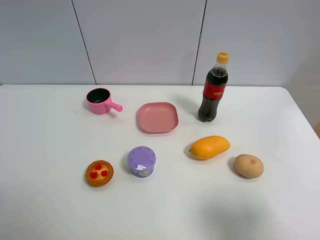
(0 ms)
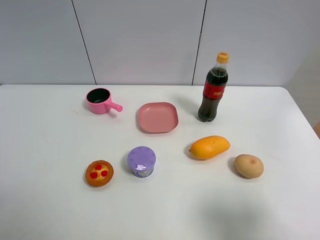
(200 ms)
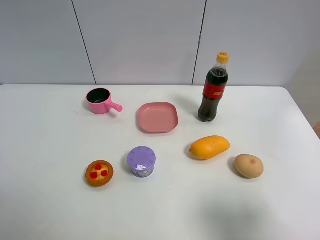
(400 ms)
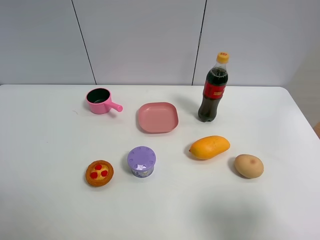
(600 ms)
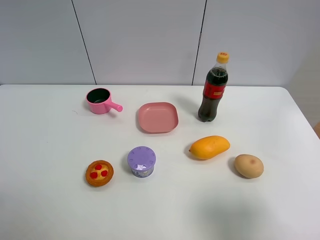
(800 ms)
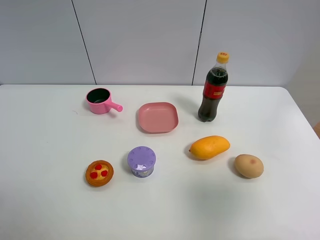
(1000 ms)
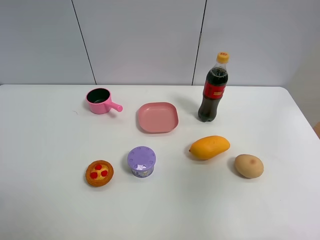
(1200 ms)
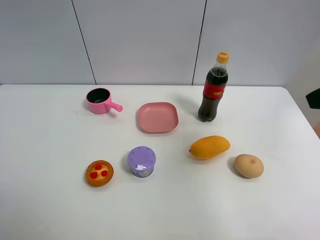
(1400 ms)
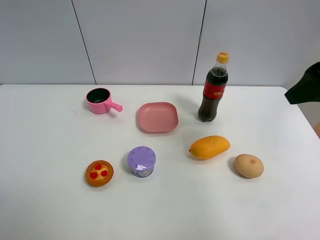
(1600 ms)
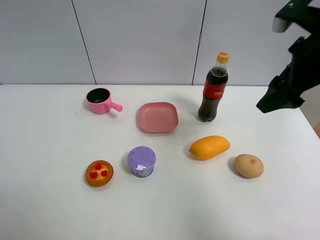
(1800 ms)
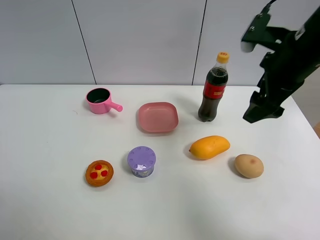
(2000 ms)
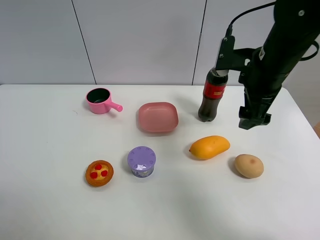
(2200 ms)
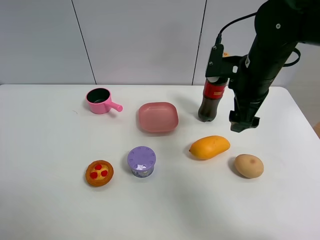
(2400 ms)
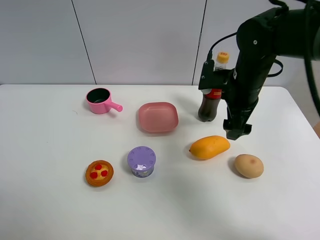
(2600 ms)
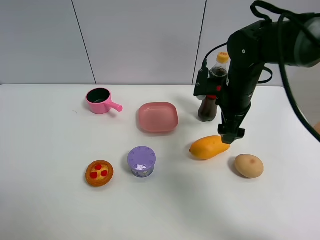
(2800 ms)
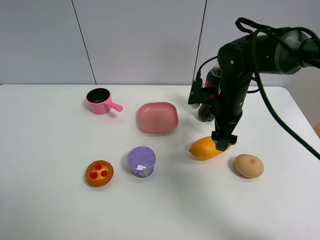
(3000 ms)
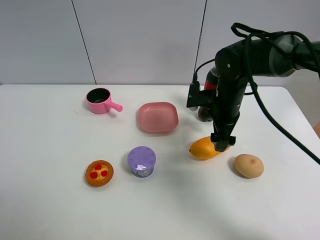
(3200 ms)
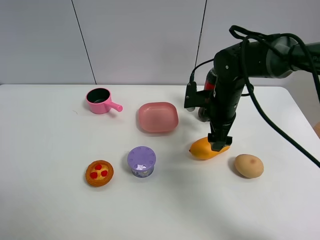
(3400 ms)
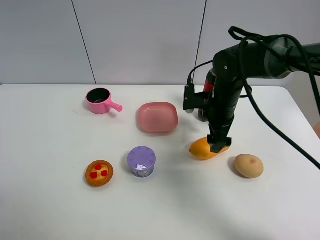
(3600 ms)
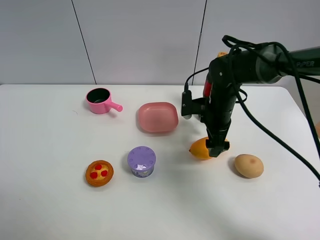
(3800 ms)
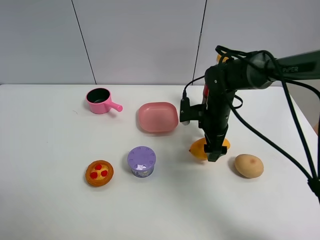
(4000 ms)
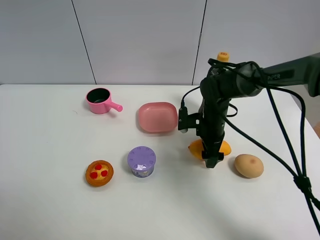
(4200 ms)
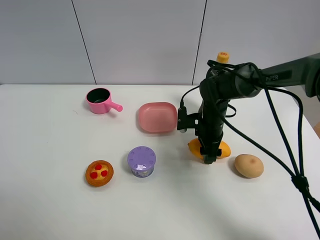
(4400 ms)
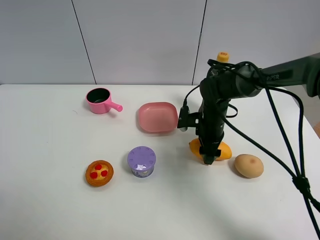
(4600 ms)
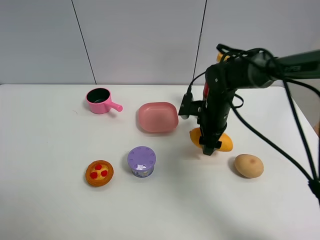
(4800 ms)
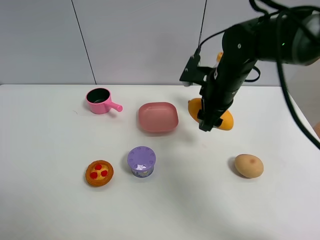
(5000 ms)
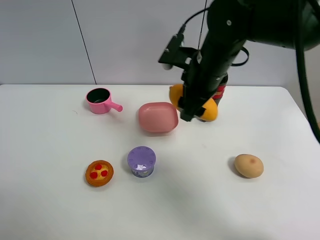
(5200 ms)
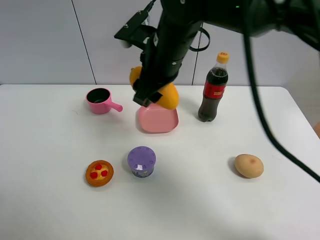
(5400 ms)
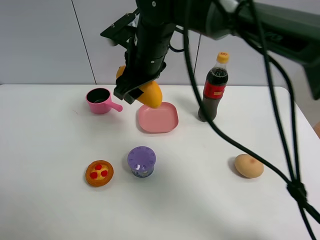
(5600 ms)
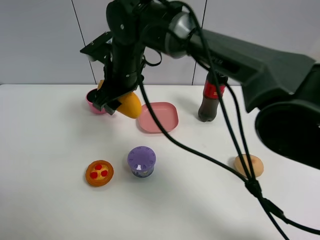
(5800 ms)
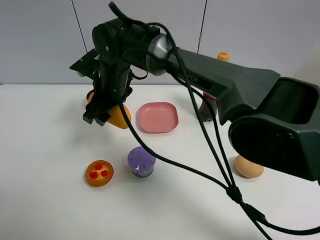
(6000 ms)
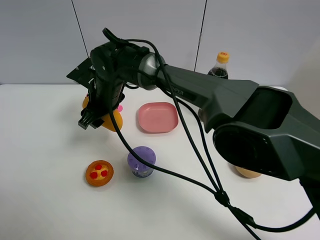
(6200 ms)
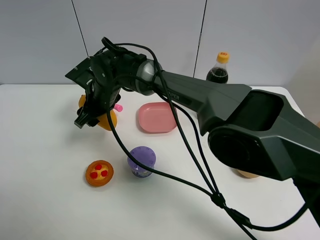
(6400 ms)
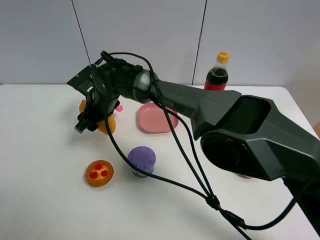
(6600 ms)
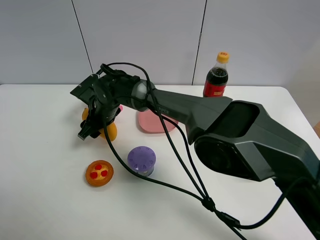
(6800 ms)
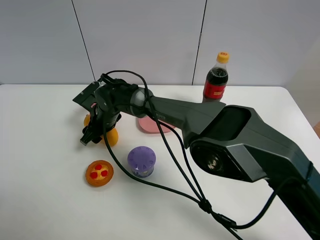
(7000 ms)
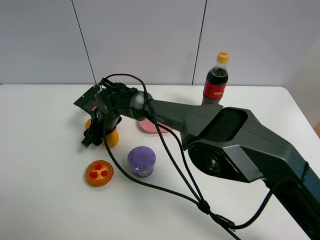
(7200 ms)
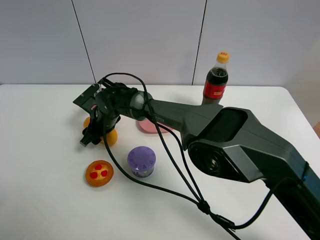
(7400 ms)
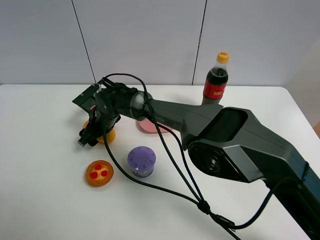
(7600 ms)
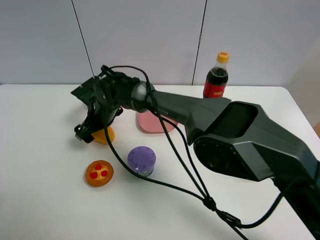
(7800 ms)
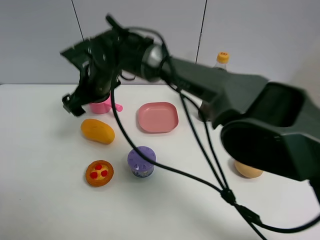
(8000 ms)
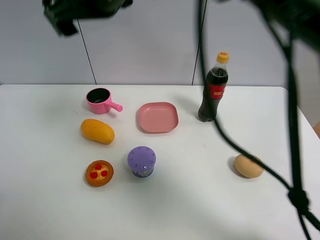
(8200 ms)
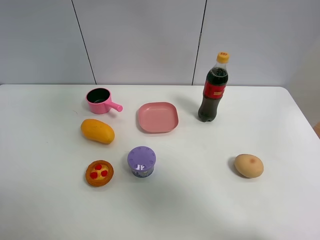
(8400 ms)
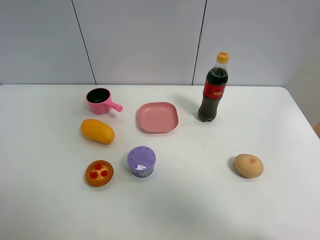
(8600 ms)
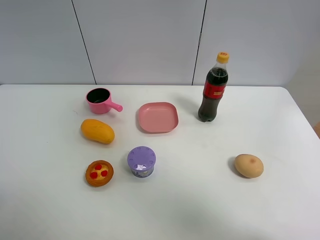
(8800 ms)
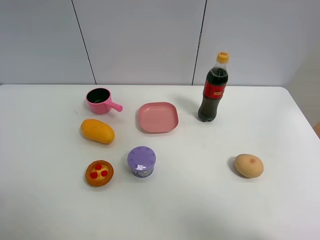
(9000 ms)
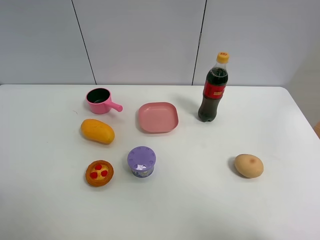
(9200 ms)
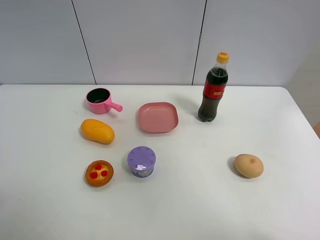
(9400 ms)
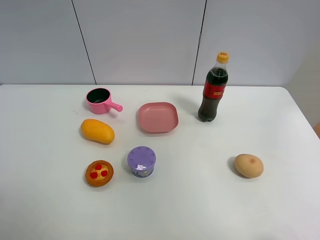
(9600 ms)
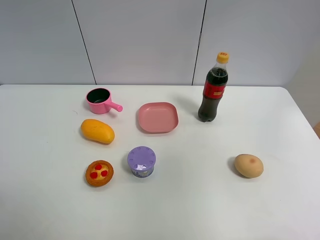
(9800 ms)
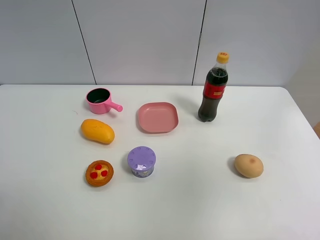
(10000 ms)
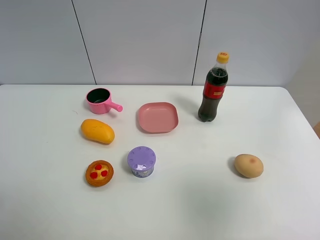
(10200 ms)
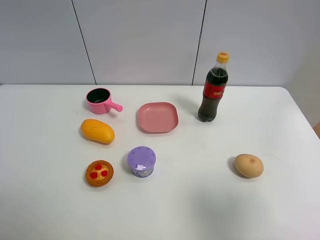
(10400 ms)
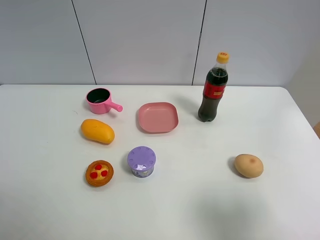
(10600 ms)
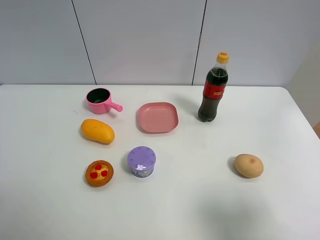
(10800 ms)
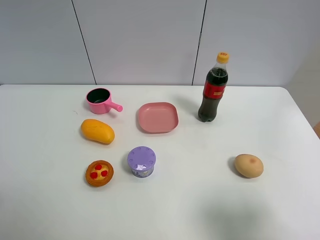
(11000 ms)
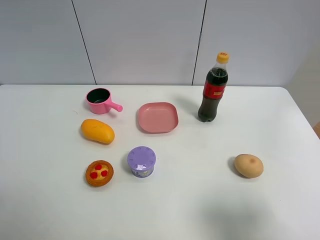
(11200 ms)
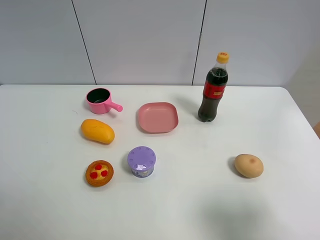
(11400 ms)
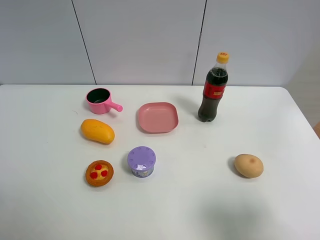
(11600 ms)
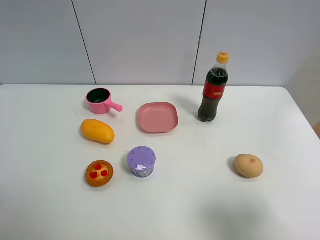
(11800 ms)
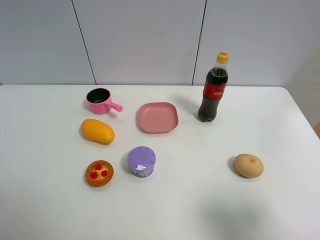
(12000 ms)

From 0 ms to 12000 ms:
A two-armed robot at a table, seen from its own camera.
Task of the whole recording: the gripper move the object.
Step, from 0 ms to 4400 ms: Grasp the mango with the right gripper.
Step, from 4600 ms to 7600 ms: Place the mango on the table with the right gripper.
From 0 ms to 1600 ms: The right gripper moves forward and upward, approximately 25 cm.
From 1600 ms to 3000 ms: The right gripper goes roughly 25 cm downward, to the left and forward.
From 3000 ms to 4400 ms: The right gripper is displaced downward by about 10 cm, and closes its fingers.
From 4400 ms to 6000 ms: The right gripper goes approximately 25 cm to the left and upward.
From 6000 ms to 7600 ms: The right gripper moves downward, about 10 cm, and opens its fingers.
From 7600 ms to 9000 ms: The right gripper goes approximately 60 cm upward, to the right and backward, and opens.
From 9000 ms to 10400 ms: The right gripper moves downward and backward, roughly 30 cm.
From 10400 ms to 12000 ms: The right gripper goes roughly 5 cm downward.

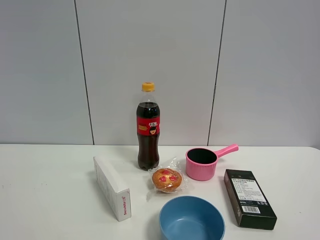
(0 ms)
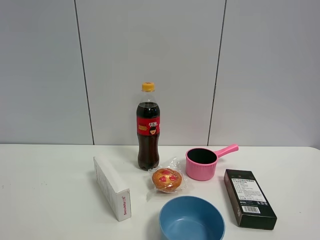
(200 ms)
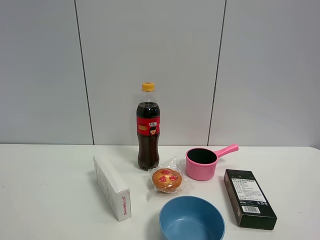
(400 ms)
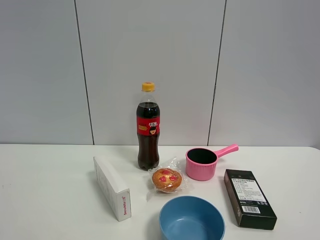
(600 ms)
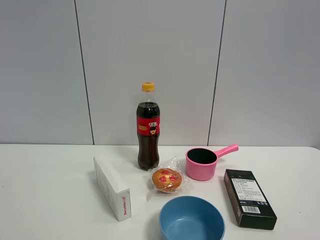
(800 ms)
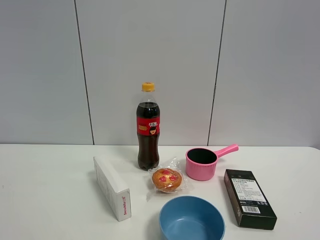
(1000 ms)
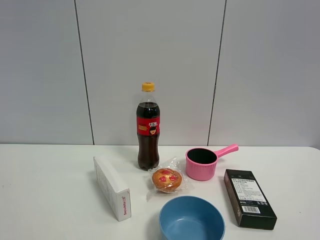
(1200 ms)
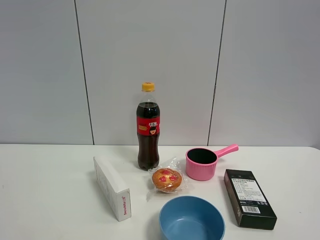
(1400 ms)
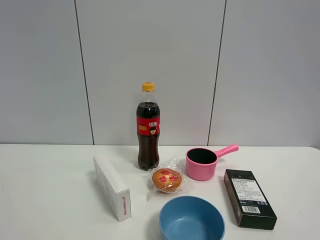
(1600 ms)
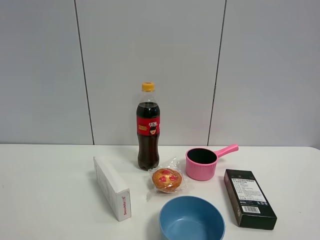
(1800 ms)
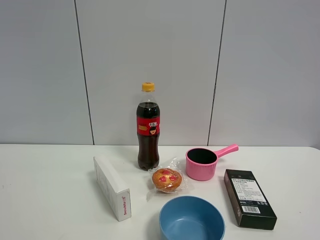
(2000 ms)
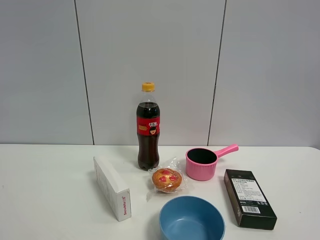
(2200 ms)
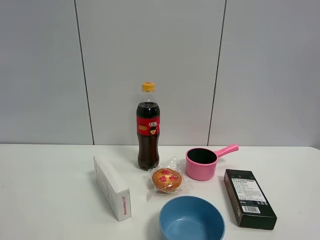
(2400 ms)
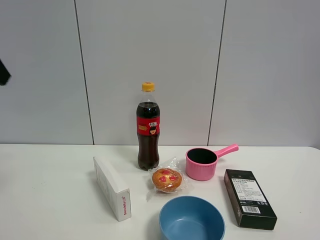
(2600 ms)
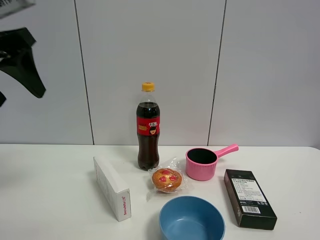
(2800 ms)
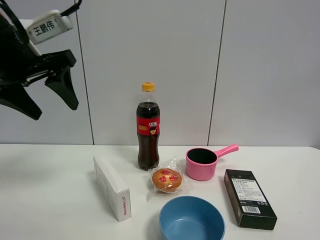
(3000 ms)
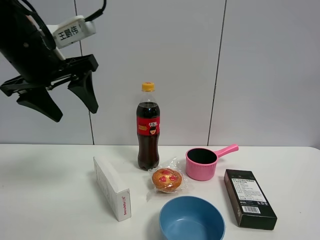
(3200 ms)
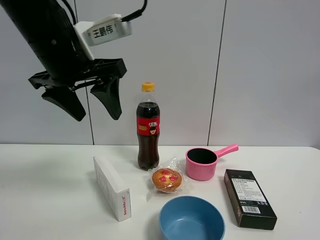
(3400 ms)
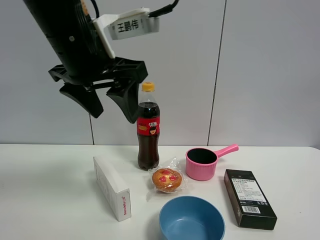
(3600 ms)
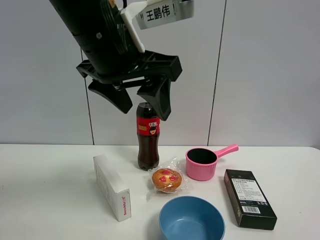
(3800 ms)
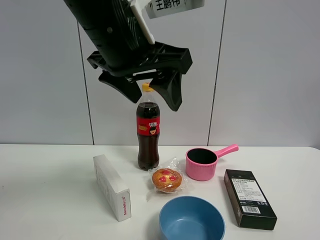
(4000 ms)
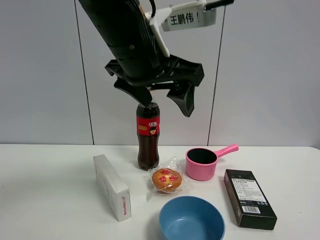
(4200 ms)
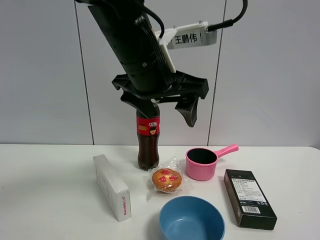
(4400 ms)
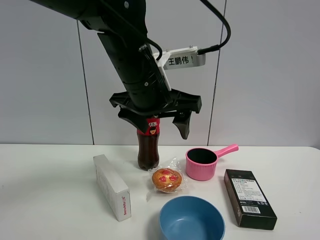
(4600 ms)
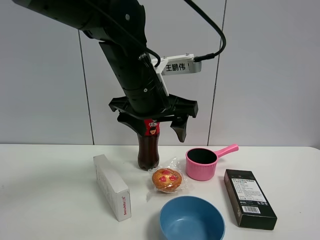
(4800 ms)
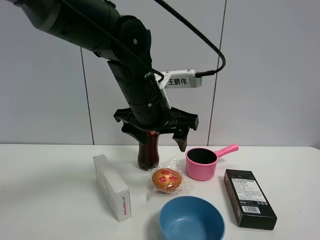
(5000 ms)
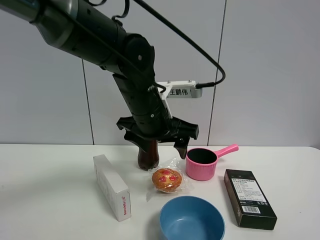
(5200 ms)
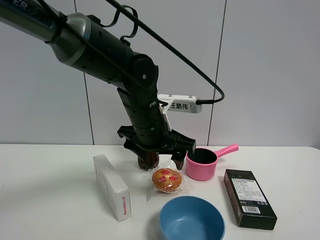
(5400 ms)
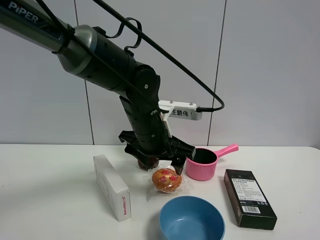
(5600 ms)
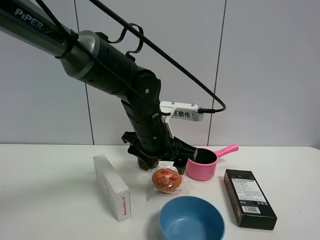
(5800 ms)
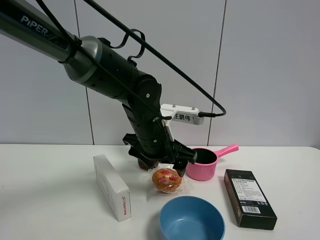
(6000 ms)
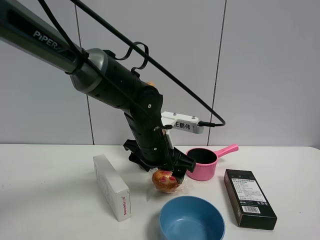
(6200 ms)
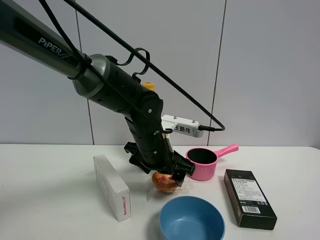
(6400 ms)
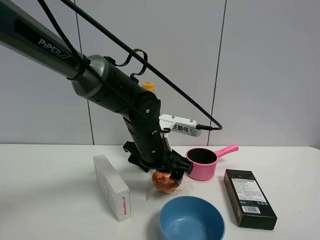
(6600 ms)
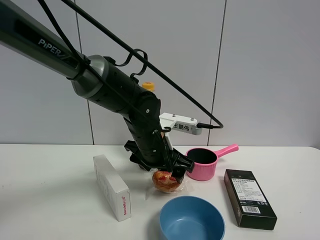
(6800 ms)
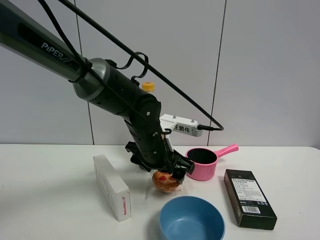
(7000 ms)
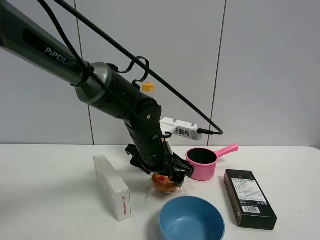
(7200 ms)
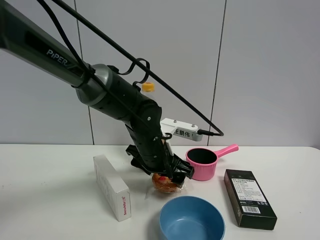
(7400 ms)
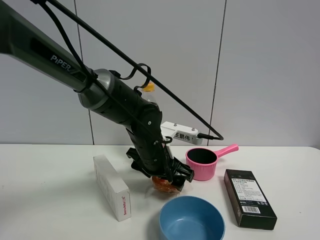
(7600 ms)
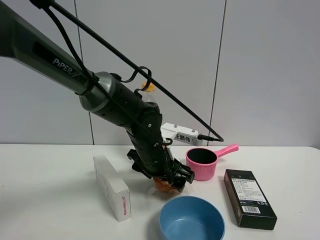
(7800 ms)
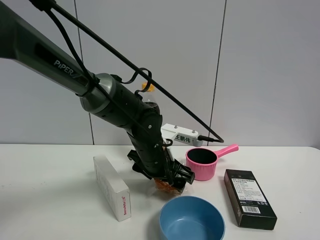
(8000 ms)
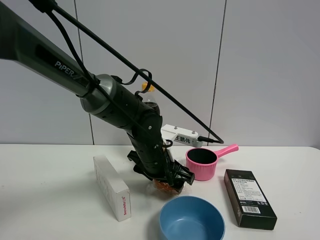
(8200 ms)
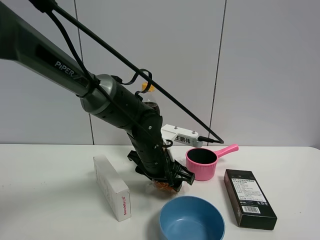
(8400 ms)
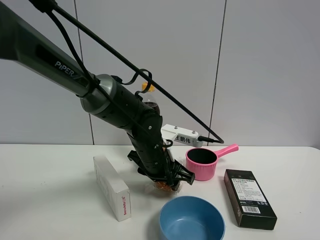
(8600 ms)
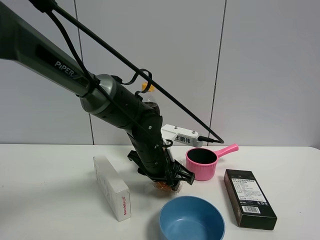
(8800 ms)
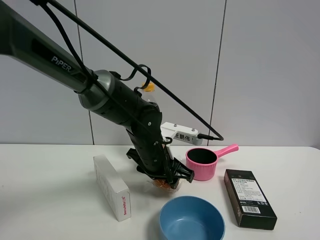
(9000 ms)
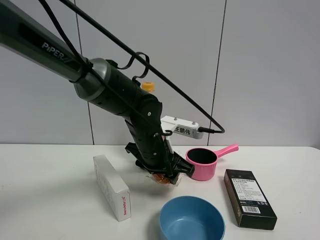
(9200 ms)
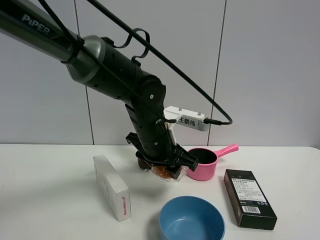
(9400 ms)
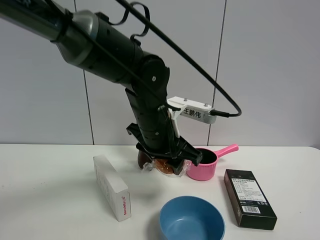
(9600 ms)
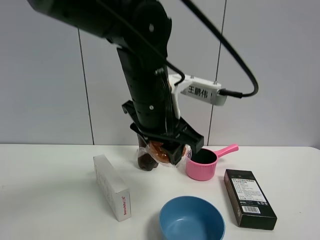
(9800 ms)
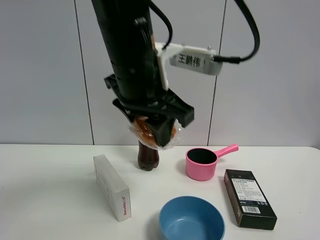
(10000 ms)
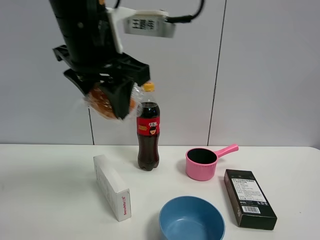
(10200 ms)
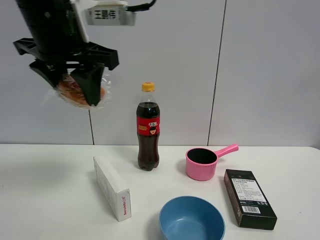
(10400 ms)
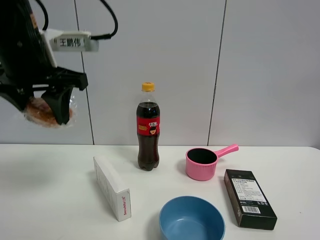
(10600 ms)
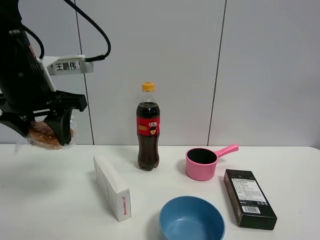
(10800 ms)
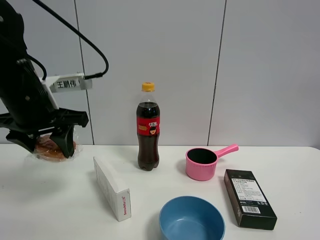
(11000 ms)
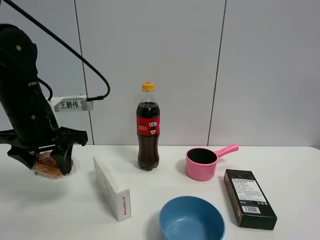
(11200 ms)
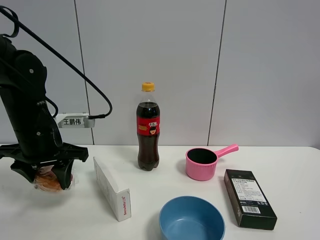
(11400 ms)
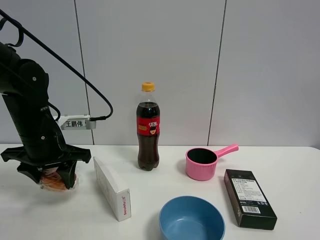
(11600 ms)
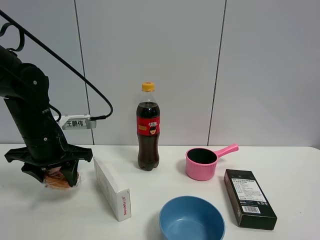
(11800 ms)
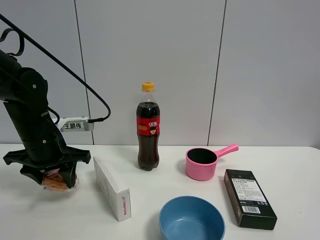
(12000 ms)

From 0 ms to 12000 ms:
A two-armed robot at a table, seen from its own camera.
Task of the whole recording: the gripper move the object.
Step, from 0 ms to 8600 ms: Grasp the egg tart with the left gripper.
From 1600 ms to 3000 ms: The left gripper goes approximately 30 cm forward.
From 3000 ms to 4400 ms: The left gripper travels to the right by some 20 cm, and opens its fingers.
From 4400 ms to 6000 ms: The left gripper is displaced downward and forward by some 15 cm.
From 6000 ms to 7600 ms: The grippers move only a little.
From 7600 ms to 9000 ms: The left gripper closes its fingers.
From 9000 ms to 10400 ms: The left gripper heads upward and to the left, covering some 25 cm.
From 10400 ms to 12000 ms: The left gripper shifts approximately 20 cm downward and to the left.
